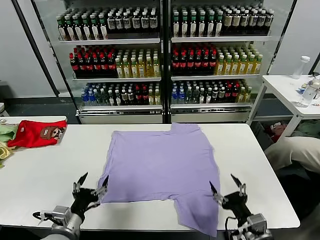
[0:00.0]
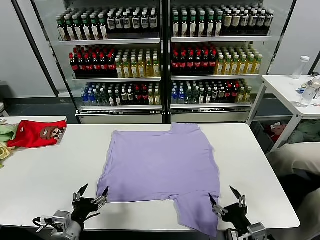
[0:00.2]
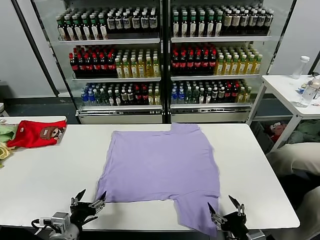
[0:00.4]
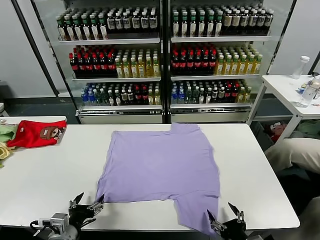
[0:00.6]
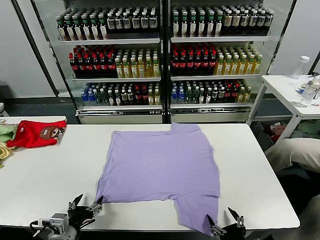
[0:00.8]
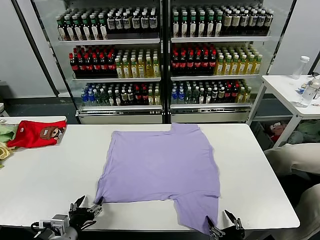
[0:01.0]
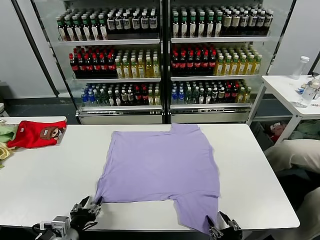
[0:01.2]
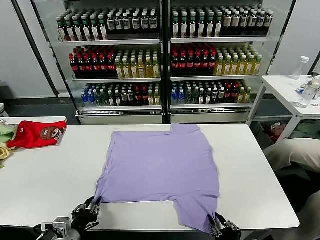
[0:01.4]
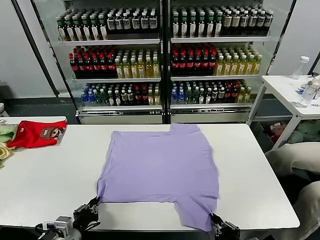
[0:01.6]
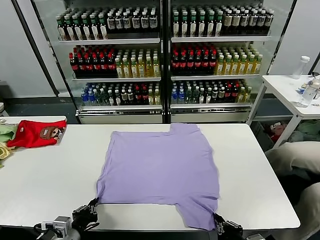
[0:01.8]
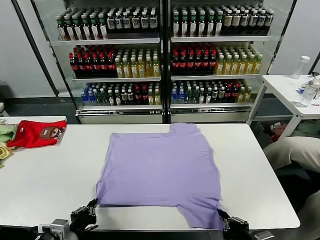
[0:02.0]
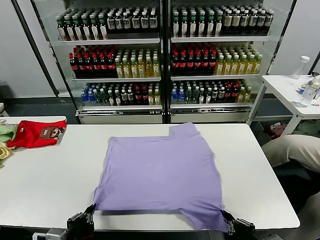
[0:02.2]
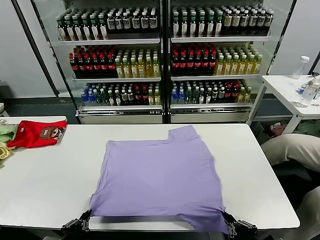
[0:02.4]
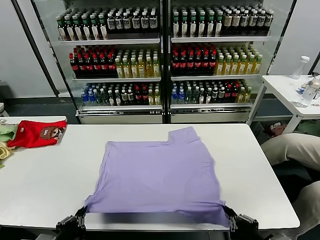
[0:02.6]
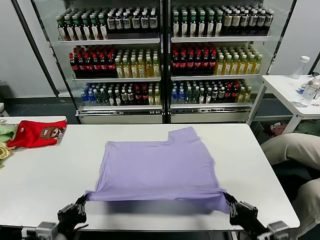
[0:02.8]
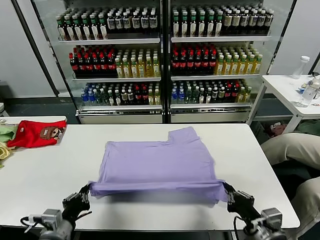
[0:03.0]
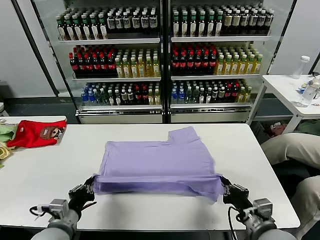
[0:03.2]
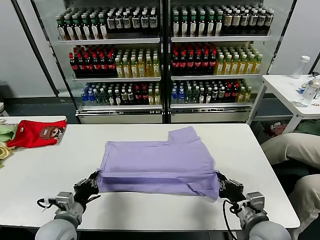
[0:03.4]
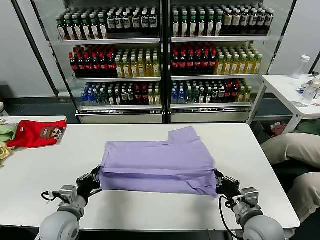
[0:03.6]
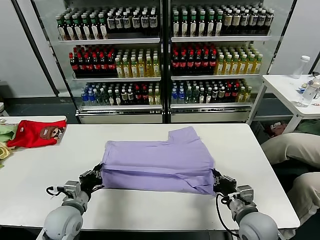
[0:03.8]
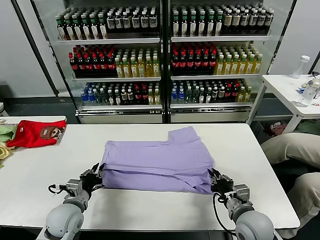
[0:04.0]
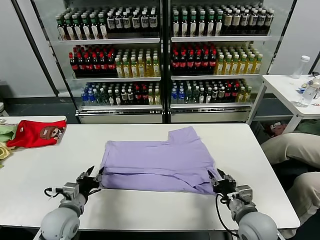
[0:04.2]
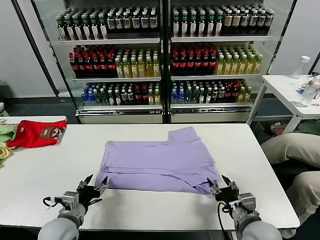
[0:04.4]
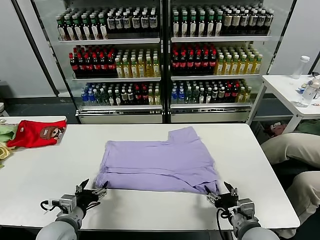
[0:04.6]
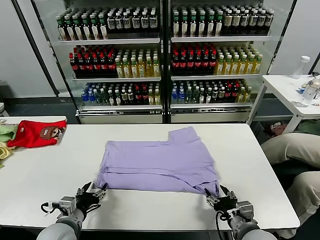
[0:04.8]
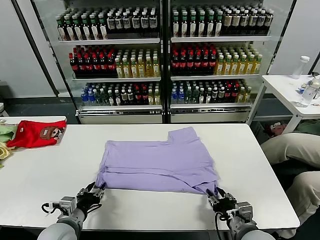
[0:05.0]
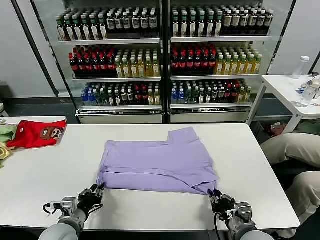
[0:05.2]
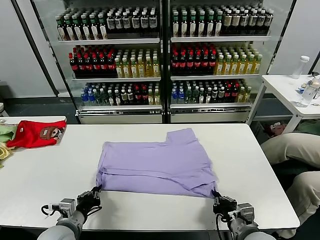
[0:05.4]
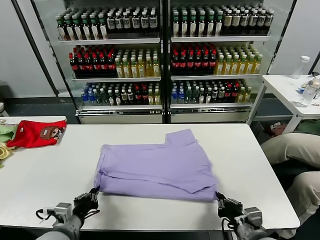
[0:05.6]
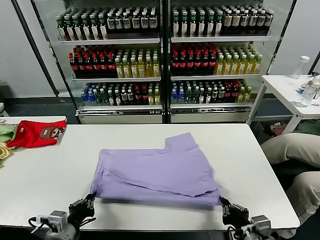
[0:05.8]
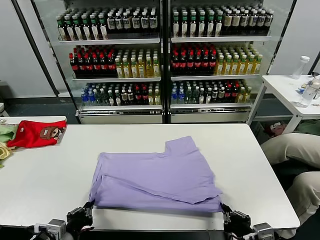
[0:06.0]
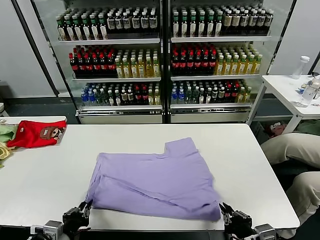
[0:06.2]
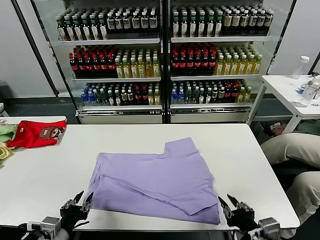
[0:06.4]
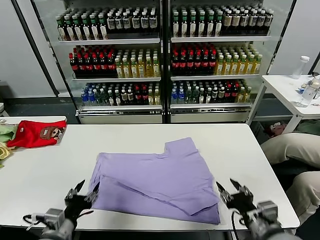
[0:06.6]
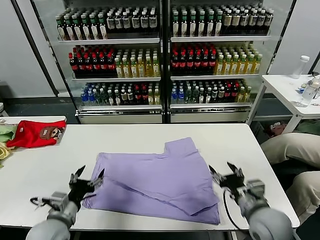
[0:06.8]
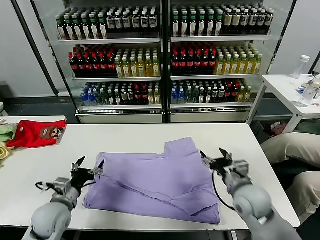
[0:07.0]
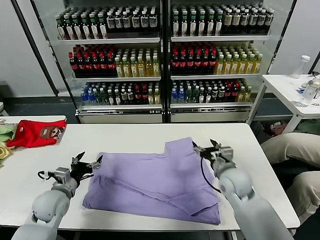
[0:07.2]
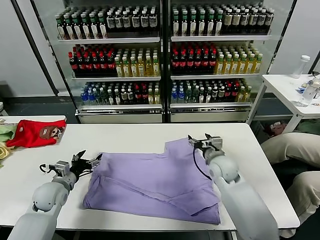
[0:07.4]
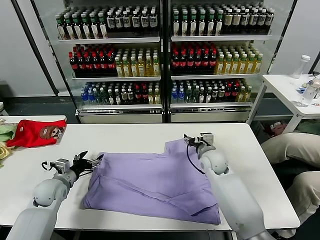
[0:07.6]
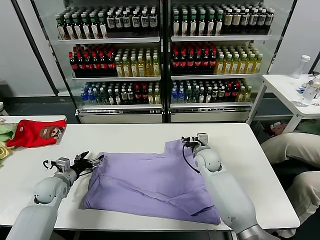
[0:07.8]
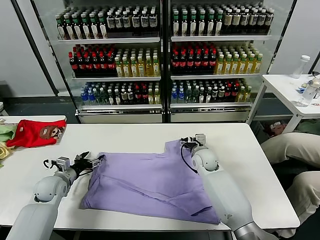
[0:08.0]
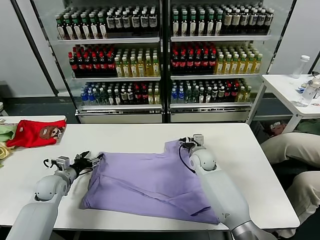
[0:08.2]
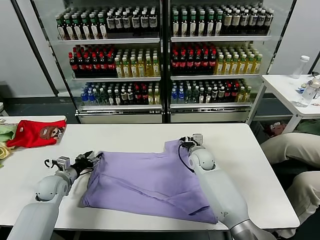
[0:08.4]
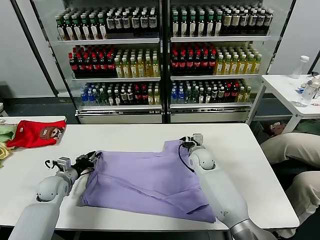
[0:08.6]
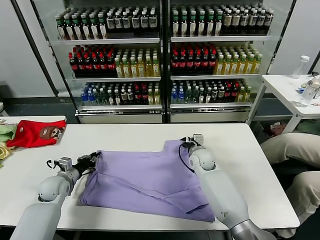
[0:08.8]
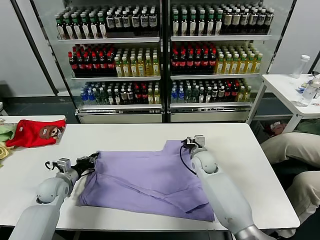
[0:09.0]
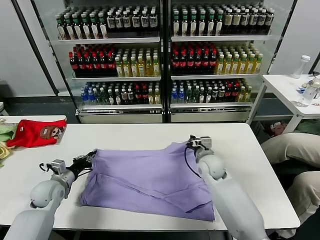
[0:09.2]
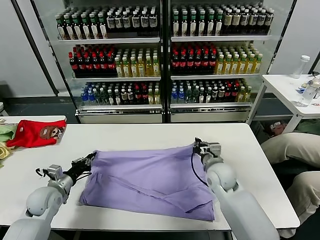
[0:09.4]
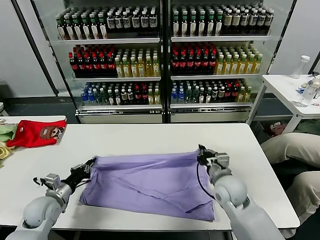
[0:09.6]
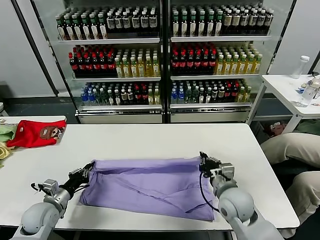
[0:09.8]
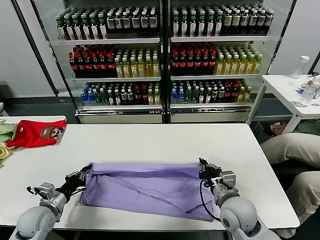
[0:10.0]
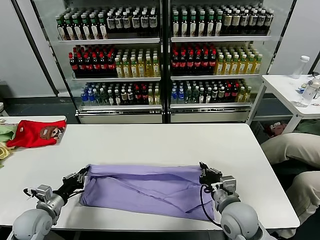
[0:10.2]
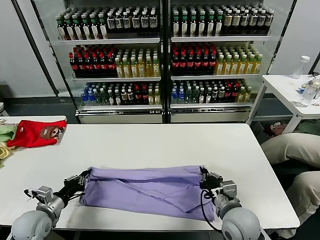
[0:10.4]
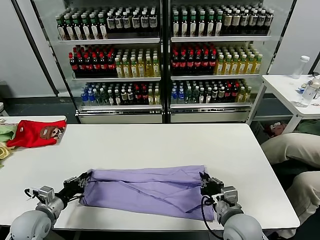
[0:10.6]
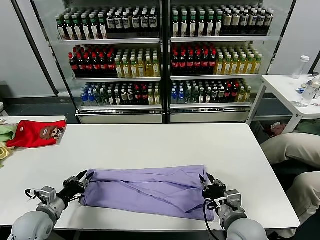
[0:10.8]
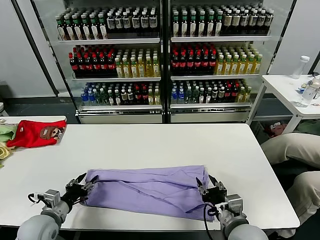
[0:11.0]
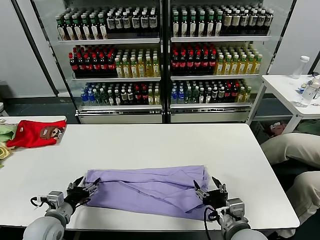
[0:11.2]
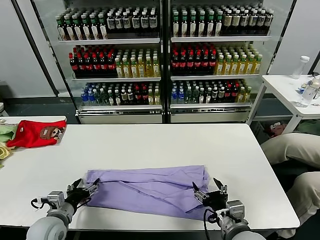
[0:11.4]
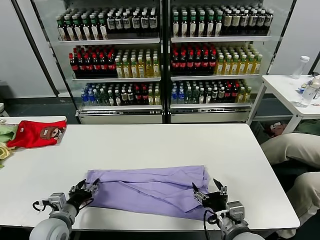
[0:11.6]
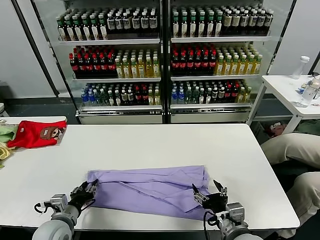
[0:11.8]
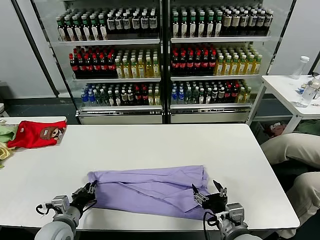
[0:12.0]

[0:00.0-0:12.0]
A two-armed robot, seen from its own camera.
Task of the whole recording: fold and organize the clothes.
Step, 0:00.0 to 0:01.6: use both grippers simultaneously to clamp the lower edge of the clothing fabric.
Step, 0:01.8 to 0:04.2: use both grippers to drag the lower edge of the fabric forward and fold it over the upper edge.
Step, 0:04.6 to 0:06.6: Drag the clothes downward with both gripper.
Step, 0:06.8 to 0:08.8: use both grippers simultaneously to clamp the upper edge of the clothing fabric.
Step, 0:09.2 to 0:11.0: use both grippers to drag the upper edge of the fabric backward and fold it over the lower edge.
Step, 0:11.2 to 0:12.0: use the left gripper to clamp the left edge of the fabric.
0:01.6 to 0:03.0: The left gripper reaches some 5 cm backward, then returns, while the right gripper is displaced forward by roughly 5 cm.
0:03.0 to 0:04.4: The right gripper opens its fingers. The left gripper shifts some 5 cm forward, and opens its fingers.
0:04.4 to 0:06.0: Both grippers move backward, some 10 cm. The left gripper closes. Meanwhile the right gripper closes.
0:06.0 to 0:07.6: The right gripper goes roughly 35 cm forward, and opens its fingers, while the left gripper heads forward and to the left, covering about 25 cm, and opens up.
0:07.6 to 0:09.0: The left gripper closes up. Meanwhile the right gripper closes its fingers.
0:09.0 to 0:10.4: The left gripper is displaced backward by roughly 15 cm; the right gripper is displaced backward by roughly 25 cm.
0:10.4 to 0:12.0: The left gripper goes approximately 10 cm to the right, and opens, then closes once more. Meanwhile the right gripper goes approximately 5 cm backward, and opens.

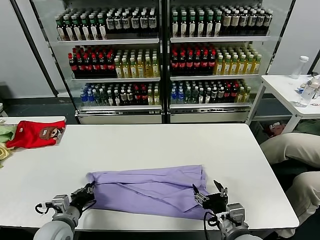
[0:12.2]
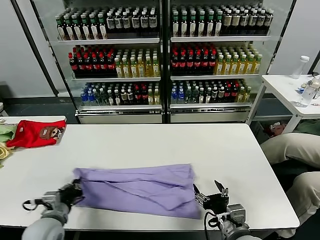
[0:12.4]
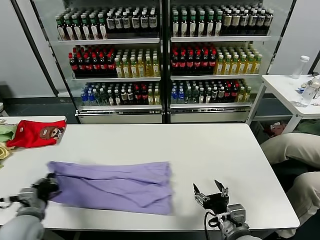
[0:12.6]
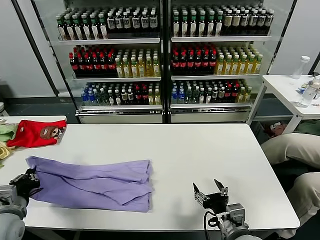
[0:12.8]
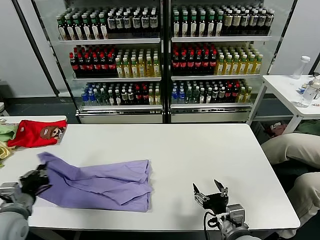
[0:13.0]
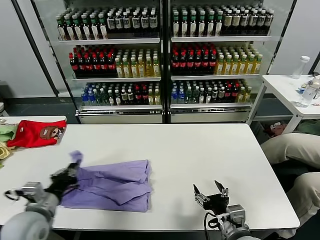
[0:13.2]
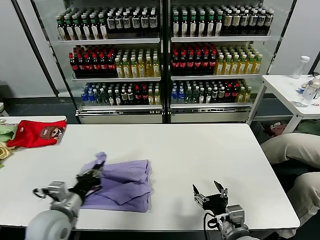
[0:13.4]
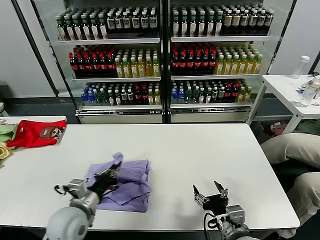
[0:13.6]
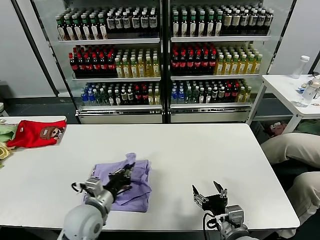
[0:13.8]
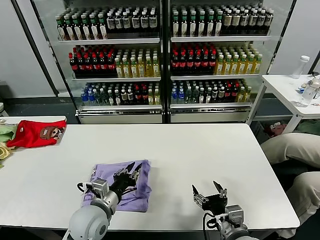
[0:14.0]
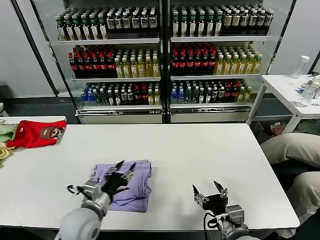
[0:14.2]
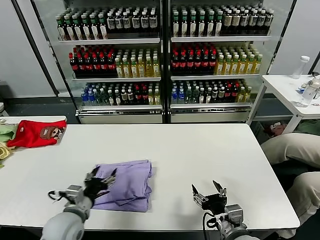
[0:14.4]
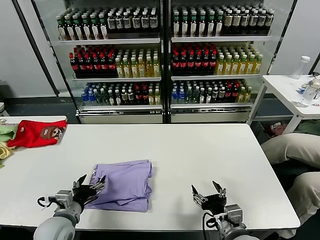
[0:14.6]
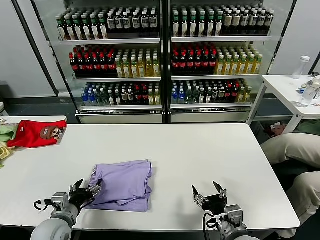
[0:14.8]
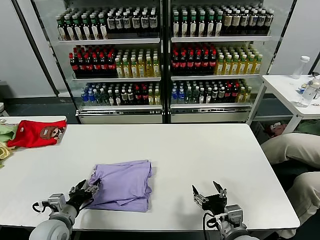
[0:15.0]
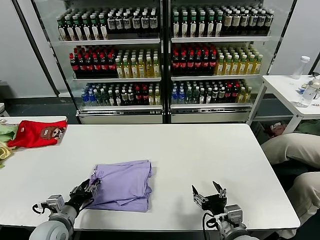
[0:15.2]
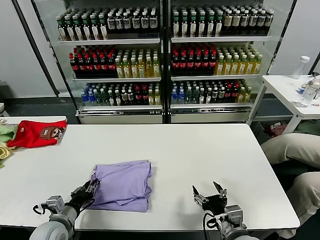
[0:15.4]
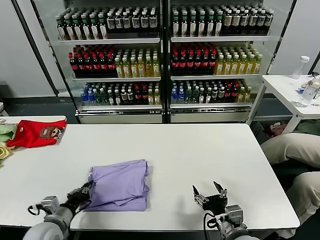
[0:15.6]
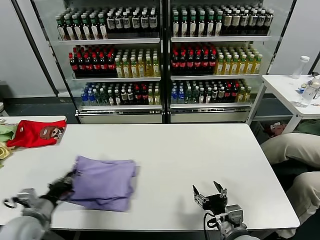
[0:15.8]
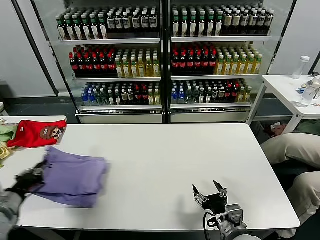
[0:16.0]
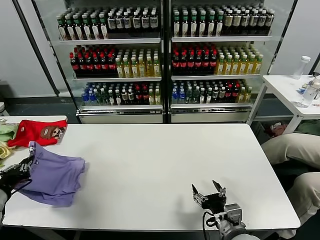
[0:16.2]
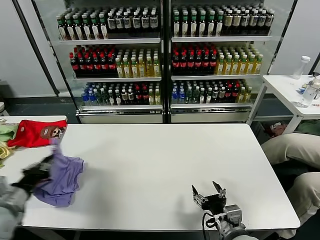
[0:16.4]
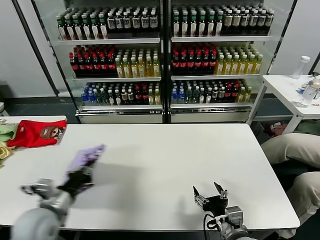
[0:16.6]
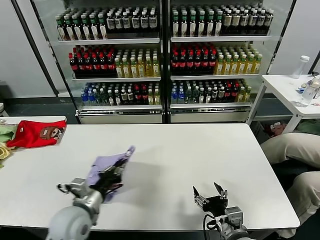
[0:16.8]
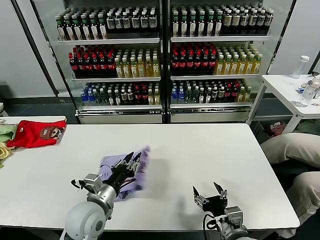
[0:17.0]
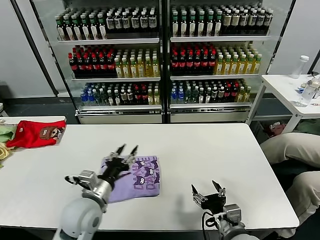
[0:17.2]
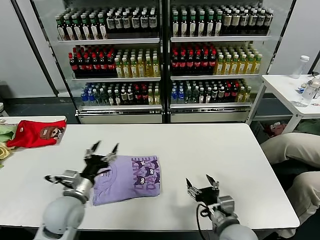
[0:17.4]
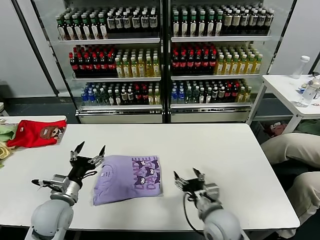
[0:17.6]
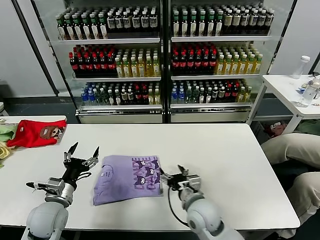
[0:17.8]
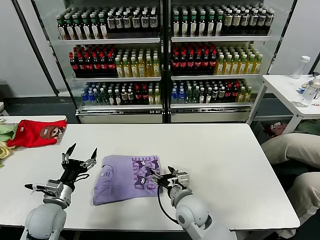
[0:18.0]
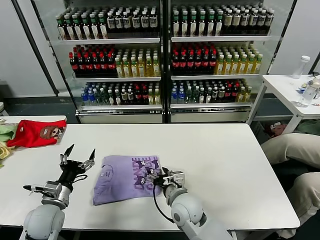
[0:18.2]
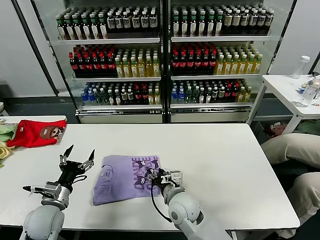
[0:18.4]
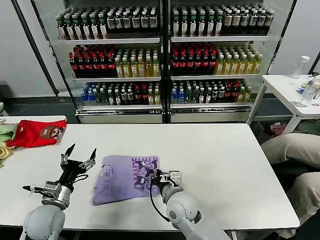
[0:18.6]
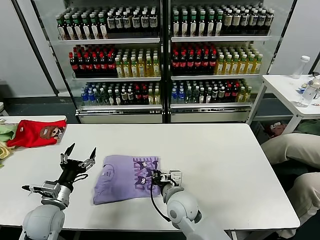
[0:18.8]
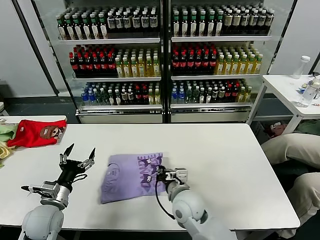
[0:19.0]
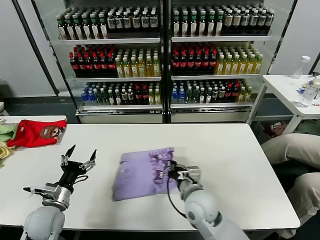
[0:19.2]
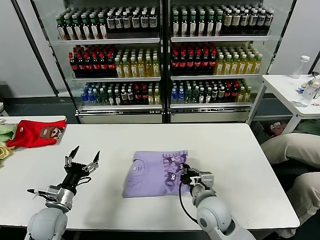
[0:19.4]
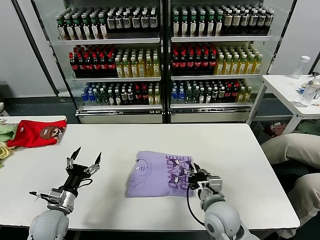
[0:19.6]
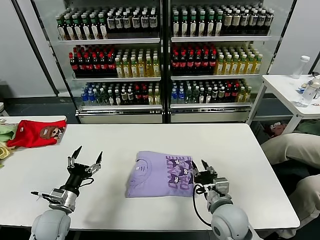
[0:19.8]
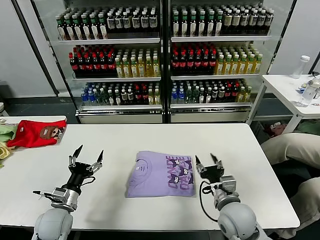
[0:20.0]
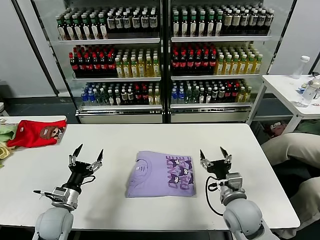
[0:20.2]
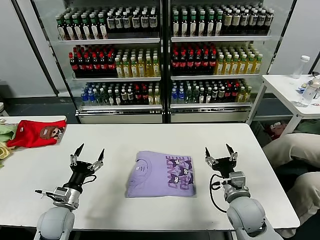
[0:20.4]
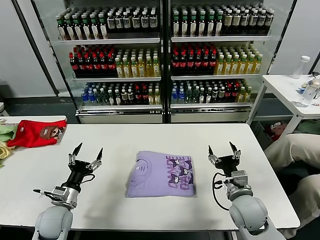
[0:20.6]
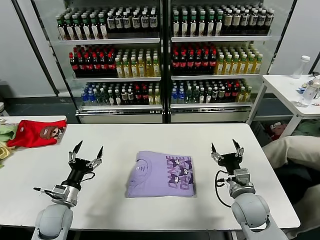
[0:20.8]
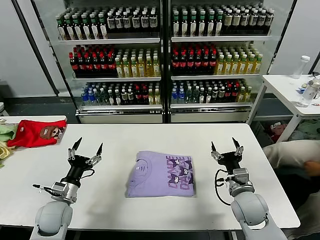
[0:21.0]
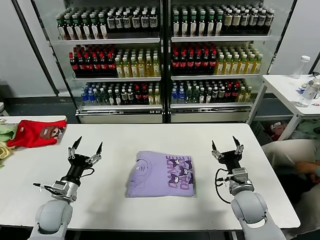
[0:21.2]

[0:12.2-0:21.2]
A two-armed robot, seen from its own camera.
Task of the whole recording: fold and organize the clothes.
Step, 0:12.2 to 0:14.2: use the left gripper to drag the left edge of the fabric to the left and folds it over the right edge.
Step, 0:14.4 to 0:17.0: Flip the folded clothes over with left gripper.
Step, 0:17.2 to 0:20.0: Drag the clothes to the center of the table.
0:12.2 to 0:13.8: The left gripper is displaced to the right and upward by roughly 10 cm.
0:13.8 to 0:15.2: The left gripper travels to the left and downward by some 15 cm, and opens, then closes once more.
0:15.2 to 0:16.6: The left gripper heads upward, covering roughly 10 cm, and closes its fingers.
0:16.6 to 0:18.2: The right gripper travels to the left and forward by roughly 20 cm; the left gripper is displaced downward by roughly 5 cm, reaches about 15 cm to the right, then returns, and opens up.
0:18.2 to 0:19.8: The right gripper shifts some 10 cm to the right, and closes up.
0:19.8 to 0:21.2: The right gripper shifts about 10 cm to the right, and opens.
